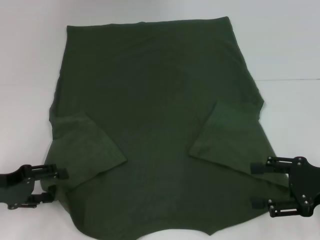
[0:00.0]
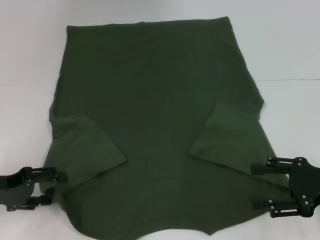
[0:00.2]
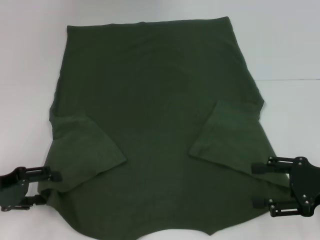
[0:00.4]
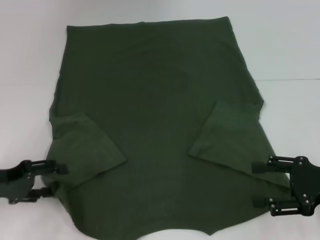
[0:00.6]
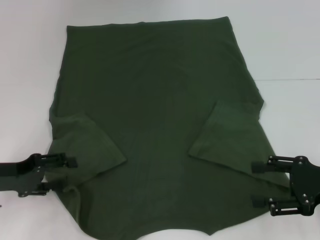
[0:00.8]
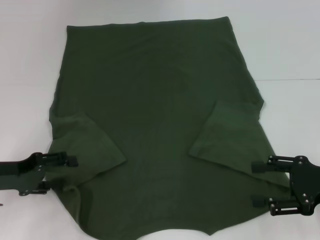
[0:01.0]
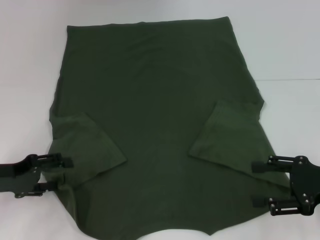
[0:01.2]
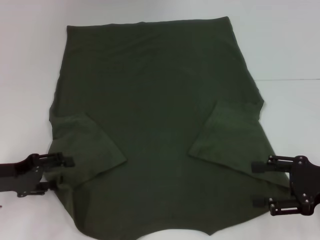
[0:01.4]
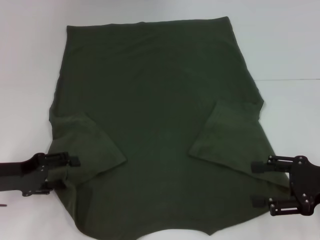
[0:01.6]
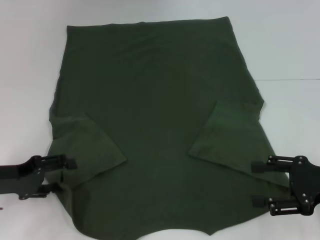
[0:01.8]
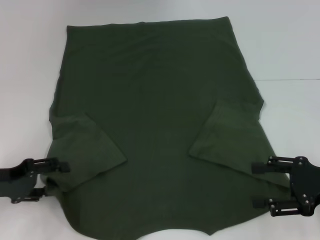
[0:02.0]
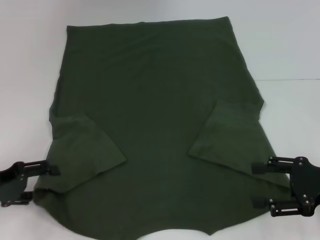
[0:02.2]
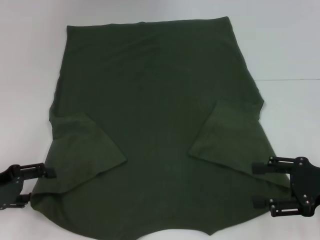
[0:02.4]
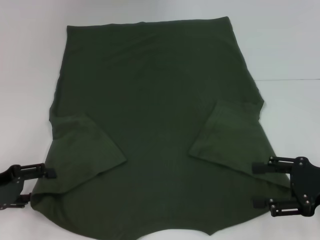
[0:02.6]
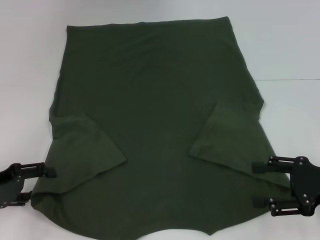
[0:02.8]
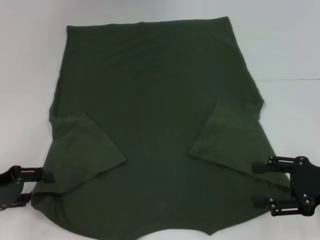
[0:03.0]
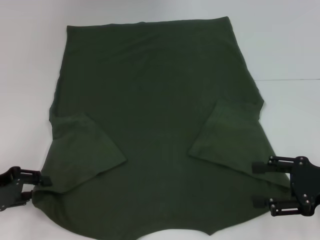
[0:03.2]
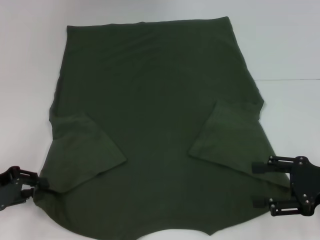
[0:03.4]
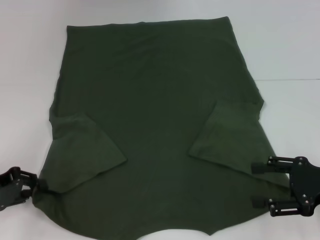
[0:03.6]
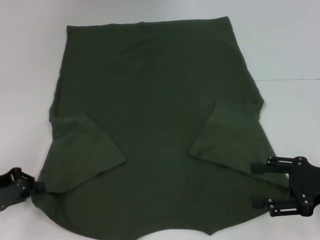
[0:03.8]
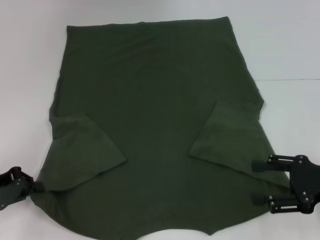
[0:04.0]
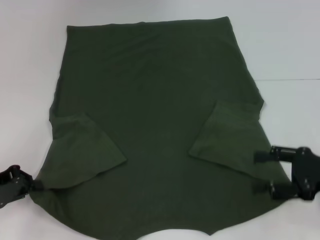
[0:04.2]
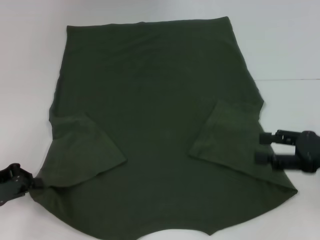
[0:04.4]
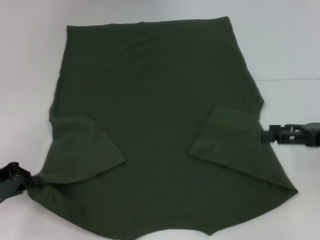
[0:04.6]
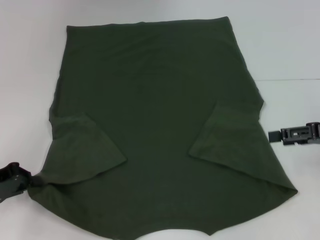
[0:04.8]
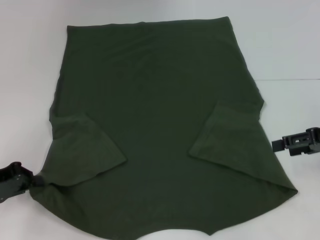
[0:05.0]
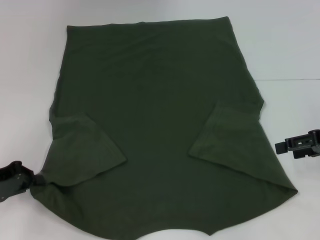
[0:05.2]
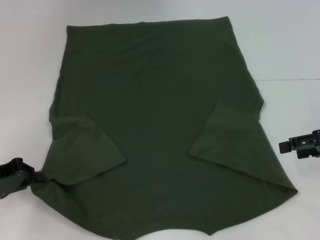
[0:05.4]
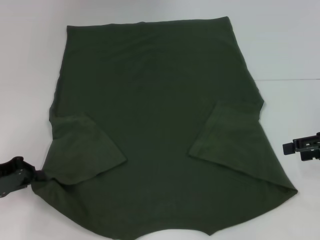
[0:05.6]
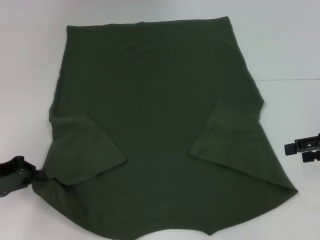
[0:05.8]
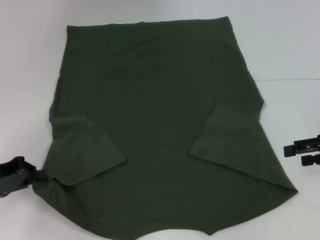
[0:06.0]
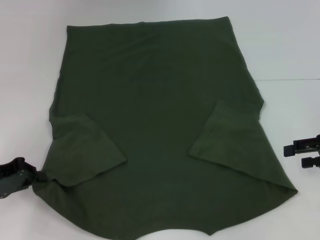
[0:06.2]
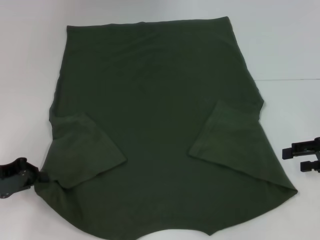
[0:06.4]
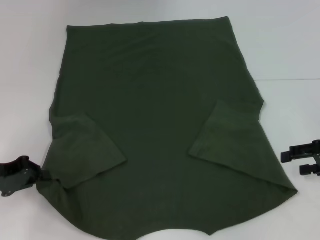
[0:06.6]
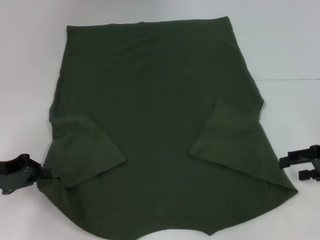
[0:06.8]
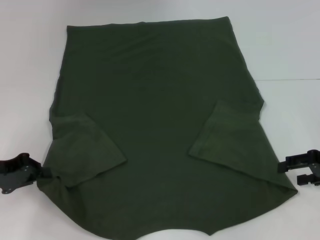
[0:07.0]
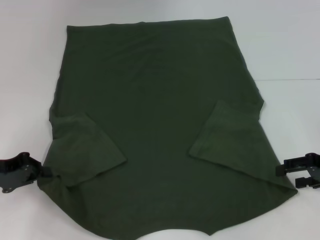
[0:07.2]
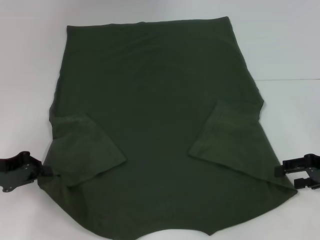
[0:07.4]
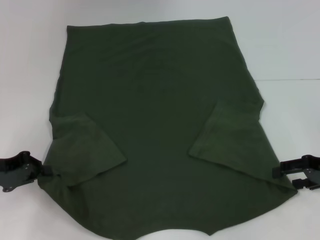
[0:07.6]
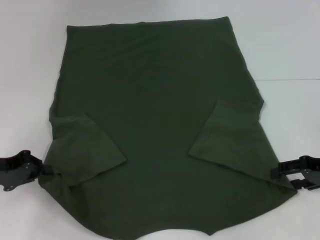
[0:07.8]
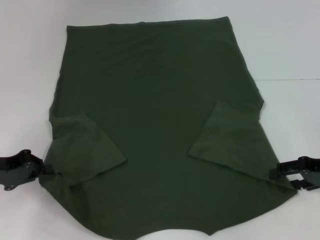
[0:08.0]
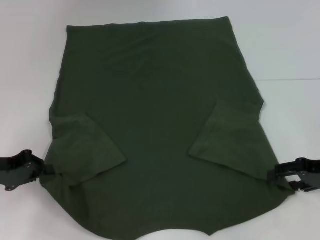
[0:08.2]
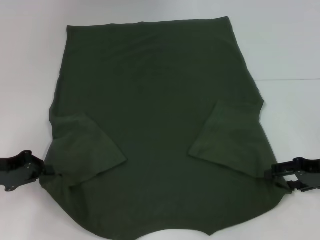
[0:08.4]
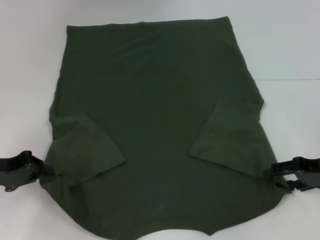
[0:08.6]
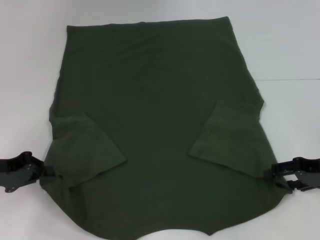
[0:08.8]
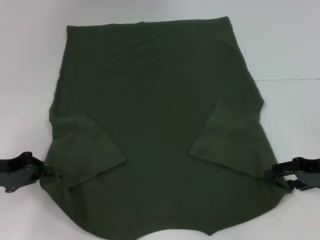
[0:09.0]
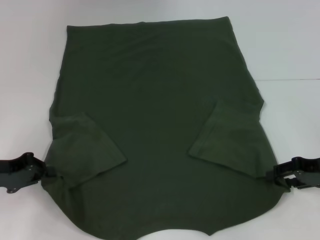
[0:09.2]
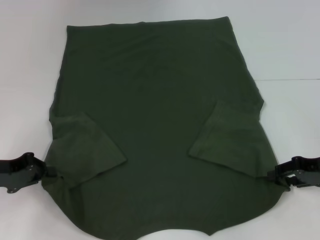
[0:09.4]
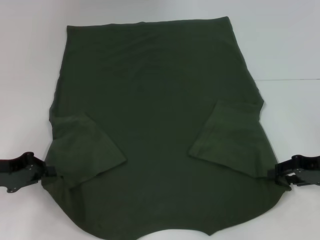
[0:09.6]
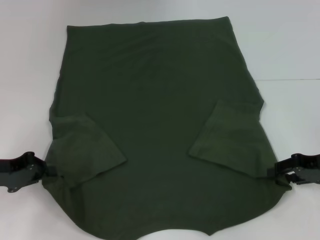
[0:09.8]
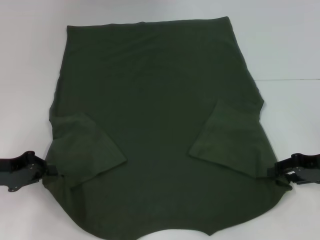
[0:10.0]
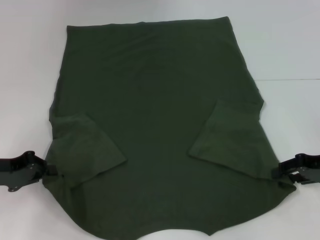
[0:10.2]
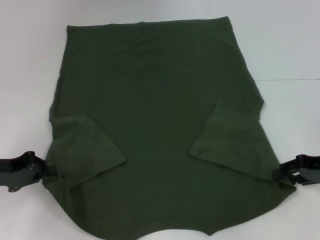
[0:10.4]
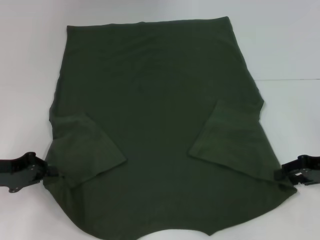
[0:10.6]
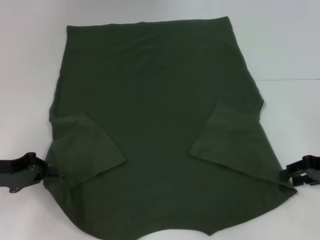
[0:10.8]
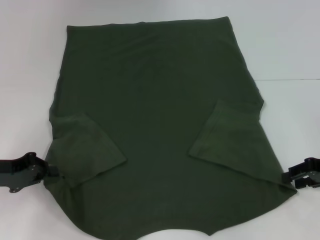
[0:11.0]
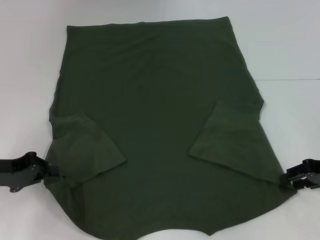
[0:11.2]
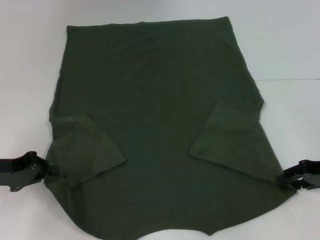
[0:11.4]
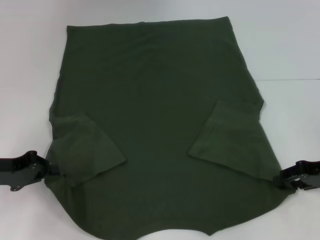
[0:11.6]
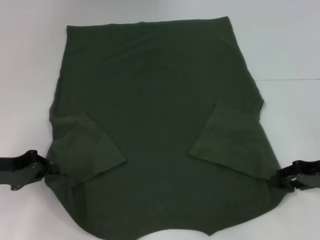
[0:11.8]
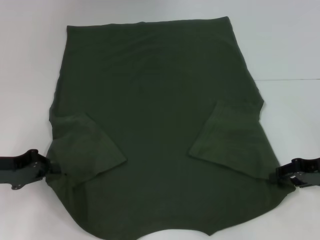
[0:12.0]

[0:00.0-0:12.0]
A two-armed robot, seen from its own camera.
Step, 0:00.0 to 0:03.6: Grab the bottom left corner with your left hand.
0:00.0 to 0:03.0: The grippers stay close to where they were, moving slightly.
0:03.0 to 0:04.4: The left gripper closes its fingers.
0:04.4 to 0:06.0: The right gripper shifts by about 5 cm.
0:06.0 to 0:07.6: The grippers make only small movements.
0:07.6 to 0:09.0: Neither gripper changes place.
0:09.0 to 0:10.4: Both grippers stay about where they are.
0:10.4 to 0:12.0: Both grippers stay put.

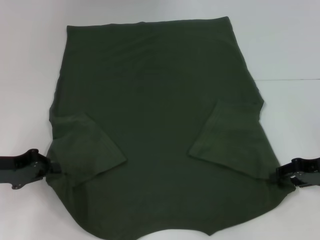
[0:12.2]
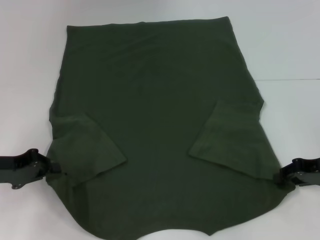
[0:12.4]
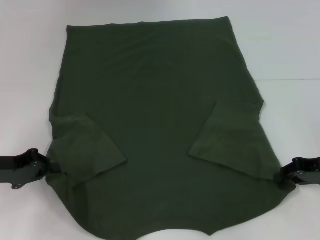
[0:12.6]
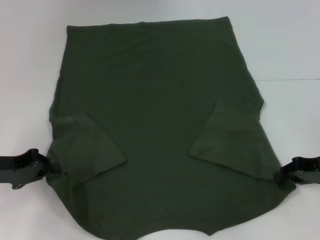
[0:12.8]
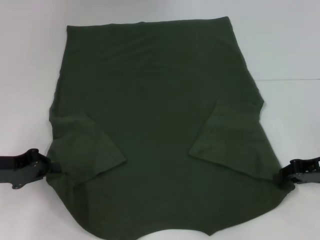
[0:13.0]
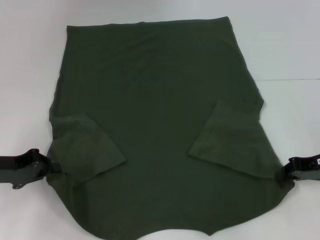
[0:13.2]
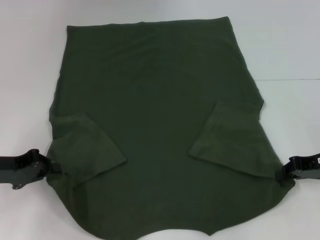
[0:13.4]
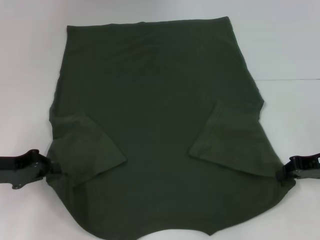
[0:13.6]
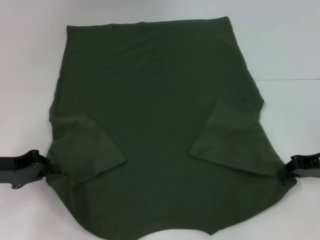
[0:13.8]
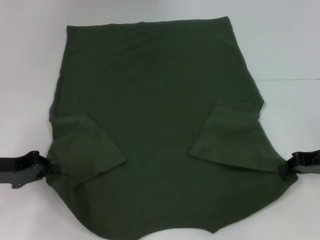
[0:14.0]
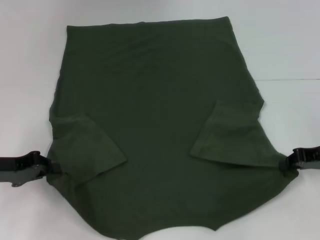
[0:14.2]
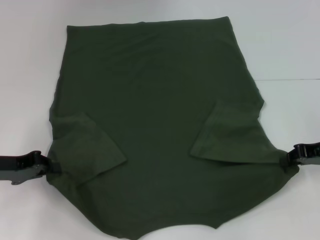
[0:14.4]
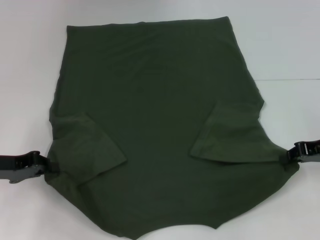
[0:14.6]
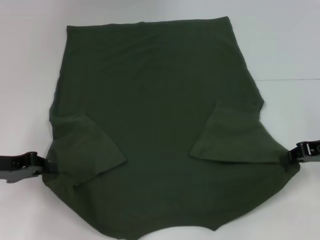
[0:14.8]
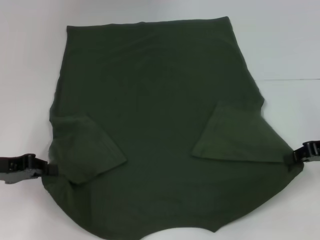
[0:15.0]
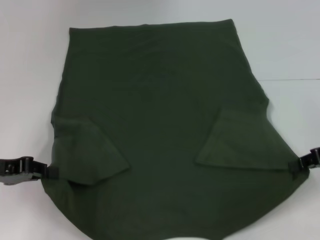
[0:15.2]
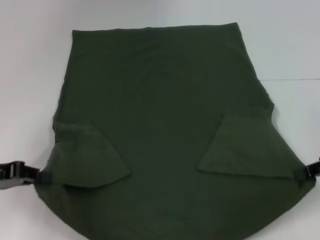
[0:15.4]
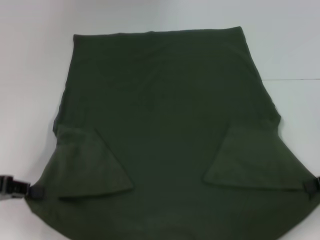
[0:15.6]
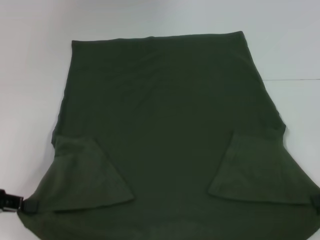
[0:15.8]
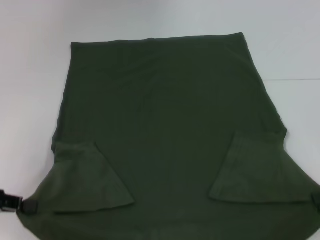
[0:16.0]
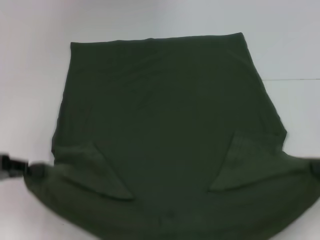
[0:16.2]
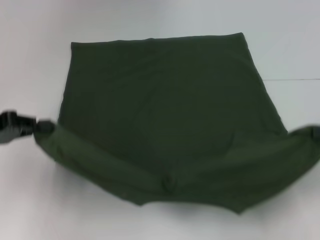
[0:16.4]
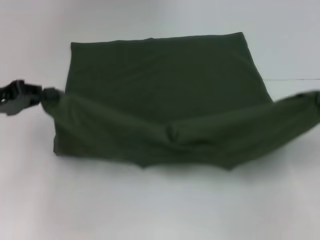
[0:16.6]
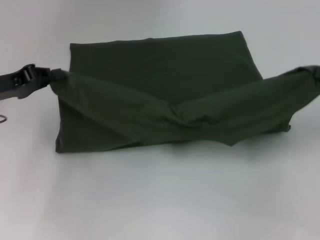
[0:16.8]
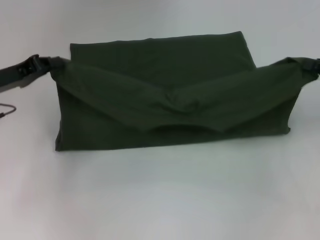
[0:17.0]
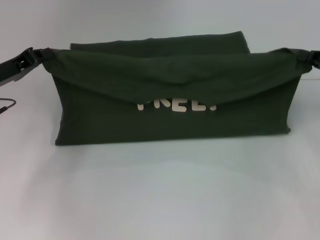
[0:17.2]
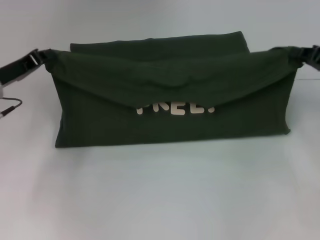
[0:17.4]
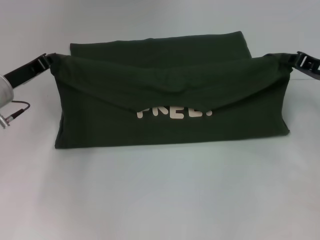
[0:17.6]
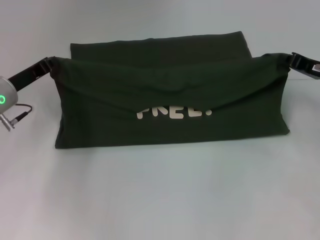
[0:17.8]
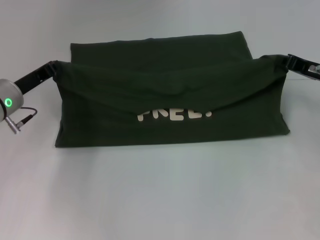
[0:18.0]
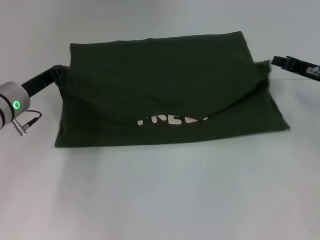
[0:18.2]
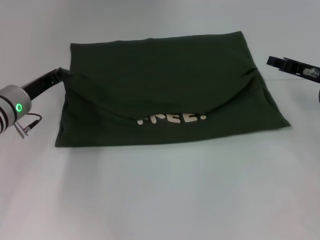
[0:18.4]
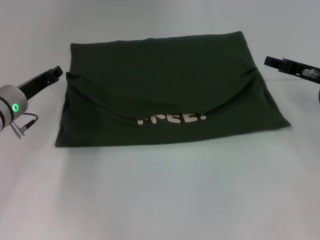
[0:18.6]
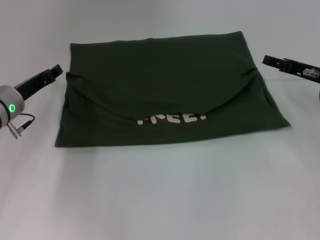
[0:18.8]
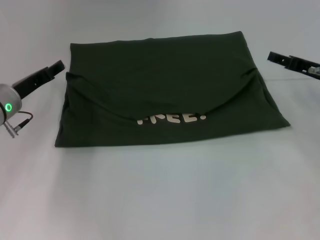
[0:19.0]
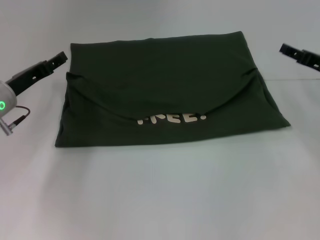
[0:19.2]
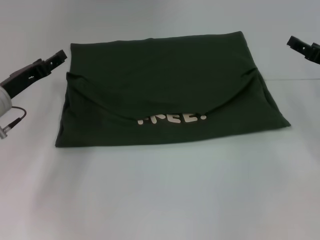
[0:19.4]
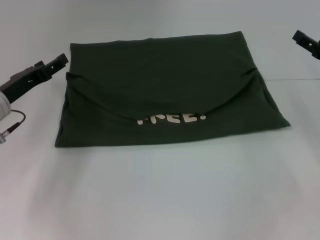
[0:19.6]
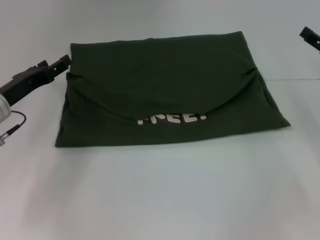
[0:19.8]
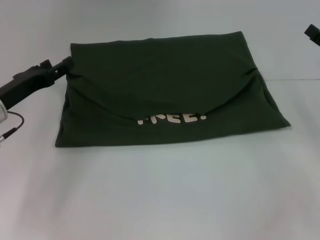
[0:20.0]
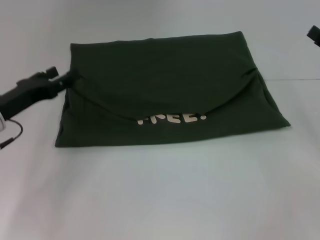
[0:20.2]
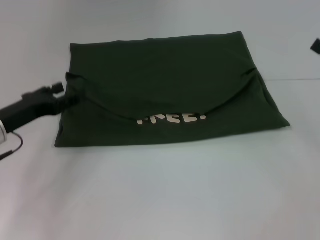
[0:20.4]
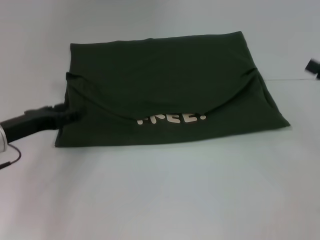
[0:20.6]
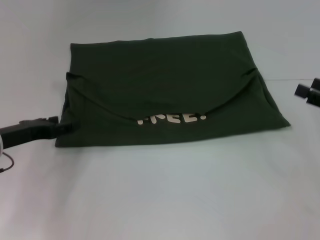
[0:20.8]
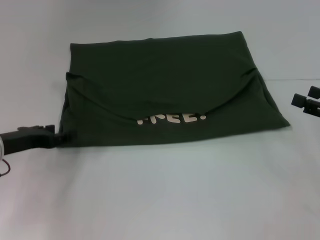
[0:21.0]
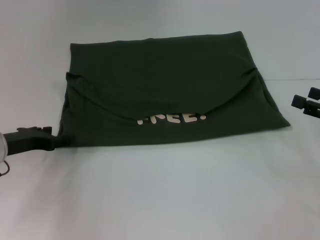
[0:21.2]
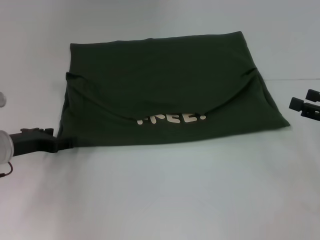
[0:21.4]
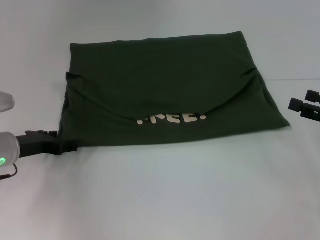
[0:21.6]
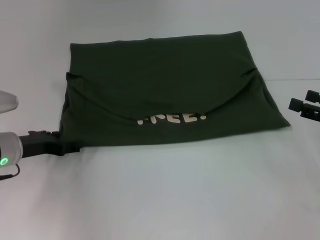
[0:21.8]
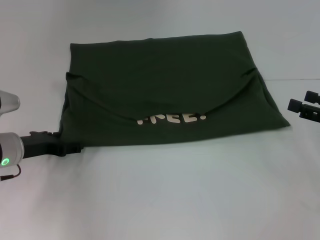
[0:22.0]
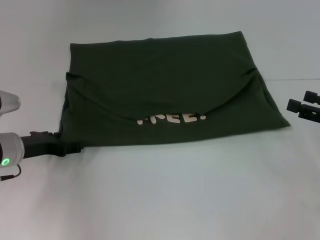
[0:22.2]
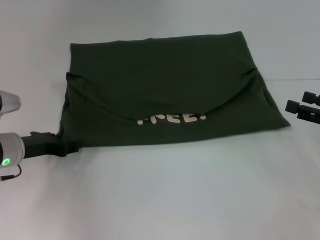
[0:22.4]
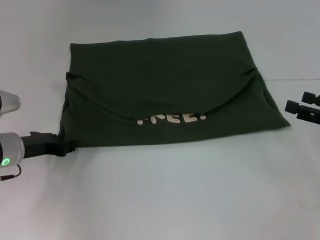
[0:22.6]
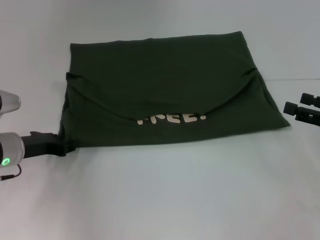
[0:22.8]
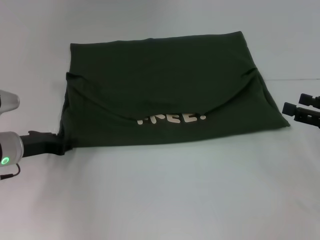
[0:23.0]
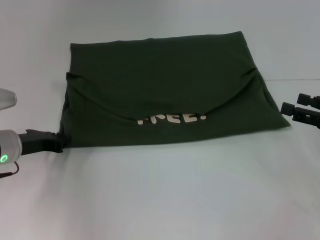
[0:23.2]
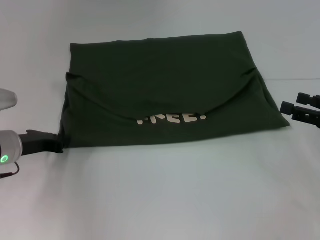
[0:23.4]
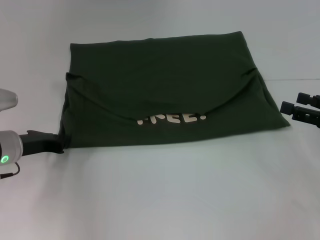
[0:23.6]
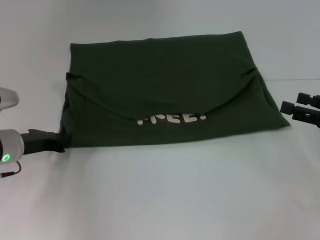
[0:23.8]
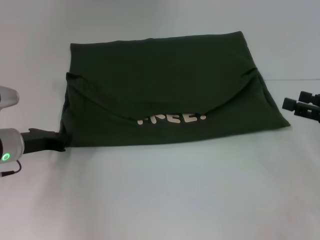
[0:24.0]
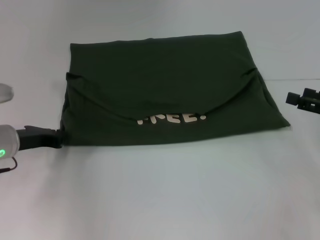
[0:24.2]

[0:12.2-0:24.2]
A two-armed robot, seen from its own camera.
Step, 0:13.6 to 0:18.8: Fold the clothes with your left hand.
Step, 0:13.6 to 0:18.8: Fold the clothes with your right hand.
0:12.2 to 0:13.8: The right gripper closes.
0:13.8 to 0:15.2: The right gripper moves about 5 cm.
0:15.2 to 0:16.6: The left gripper shifts by about 5 cm, while the right gripper changes place by about 5 cm.
0:16.6 to 0:18.2: The left gripper travels to the right, forward and downward by roughly 10 cm. Meanwhile the right gripper travels forward, to the left and downward by approximately 15 cm.
0:18.2 to 0:19.8: The left gripper opens; the right gripper ends up about 5 cm from where it was, and opens up.
0:19.8 to 0:21.2: The right gripper heads backward, covering about 5 cm.
0:21.2 to 0:22.6: The grippers move only a little.
0:22.6 to 0:24.2: The left gripper closes its fingers.
